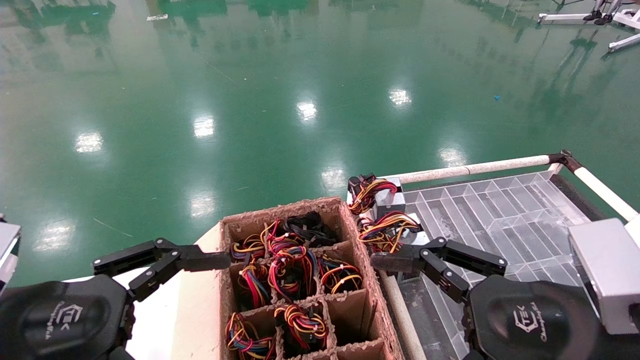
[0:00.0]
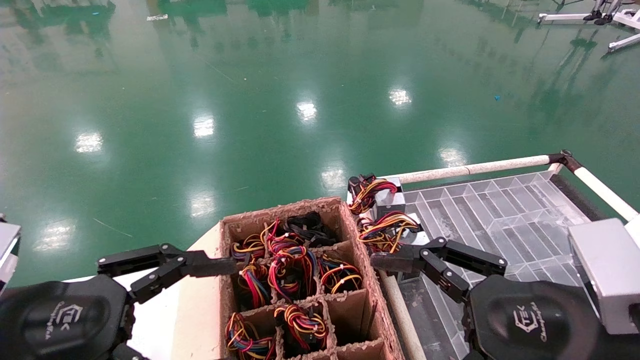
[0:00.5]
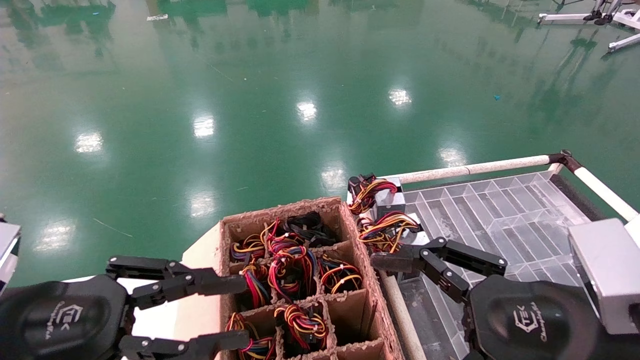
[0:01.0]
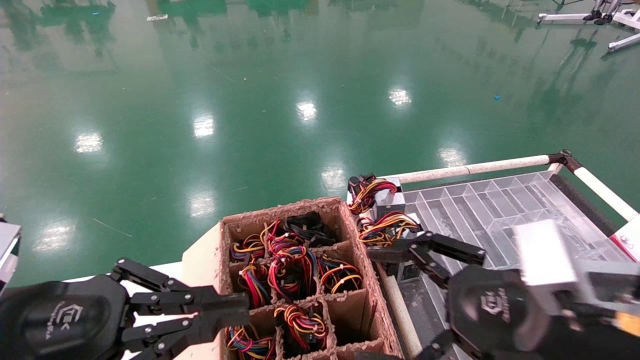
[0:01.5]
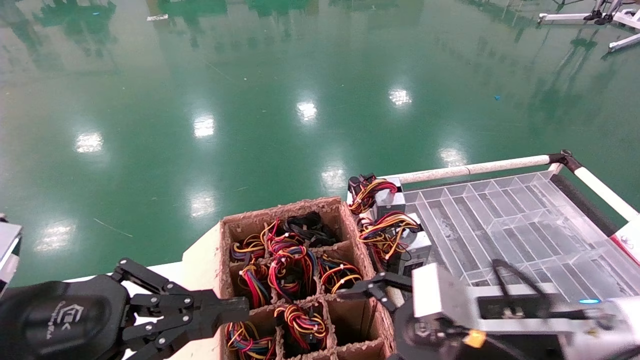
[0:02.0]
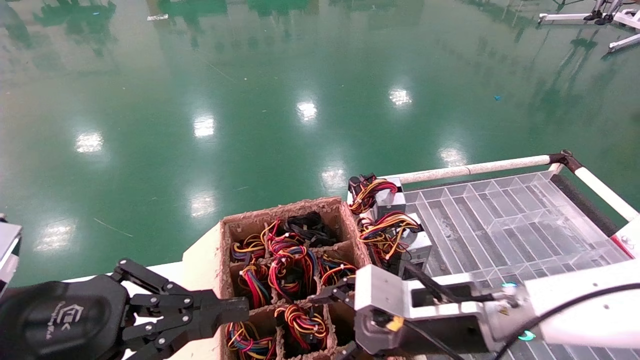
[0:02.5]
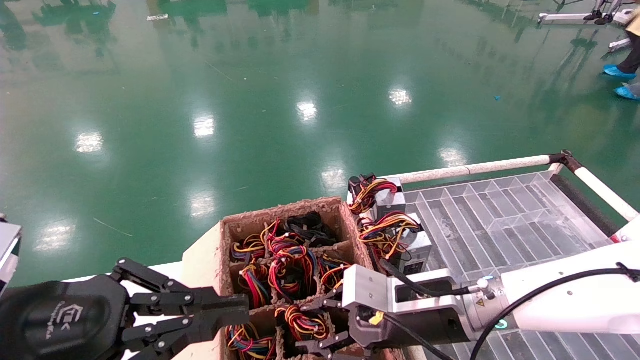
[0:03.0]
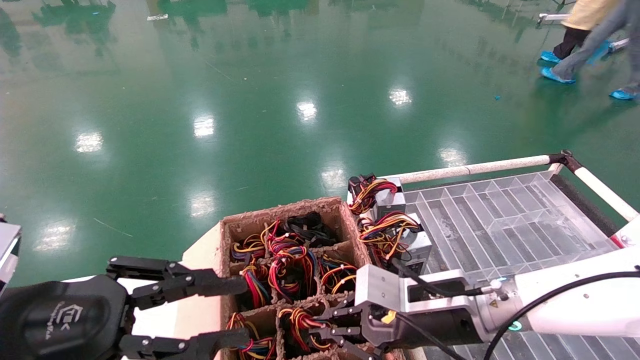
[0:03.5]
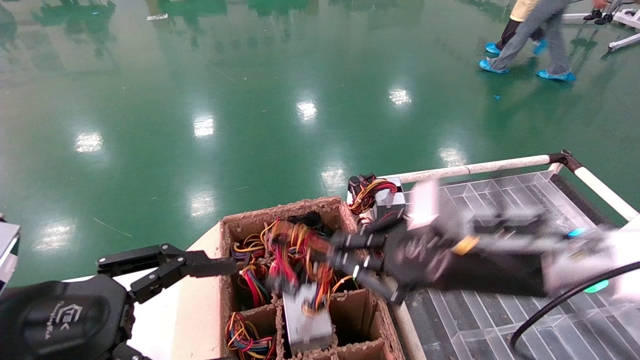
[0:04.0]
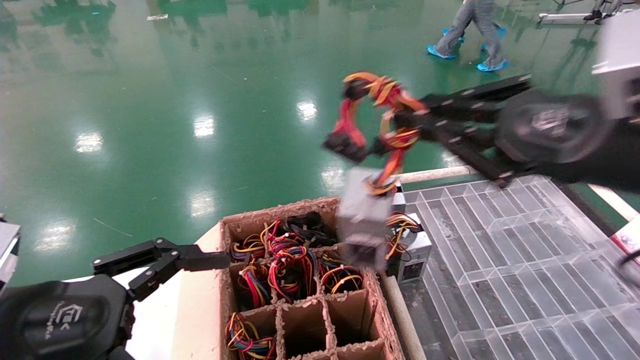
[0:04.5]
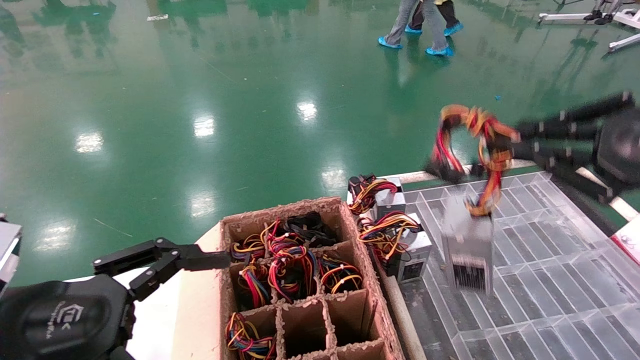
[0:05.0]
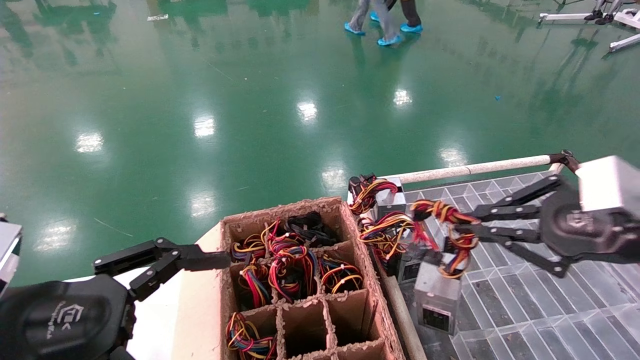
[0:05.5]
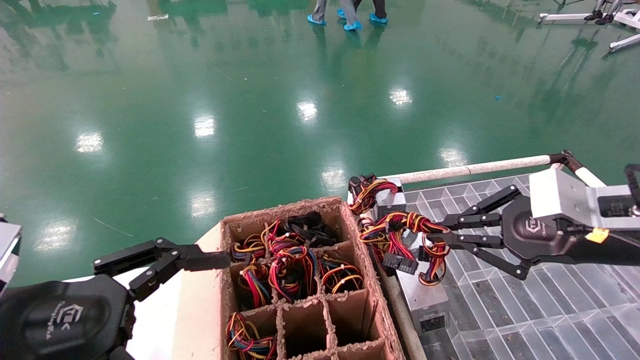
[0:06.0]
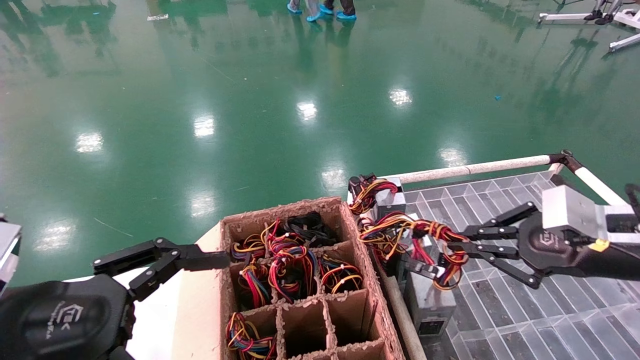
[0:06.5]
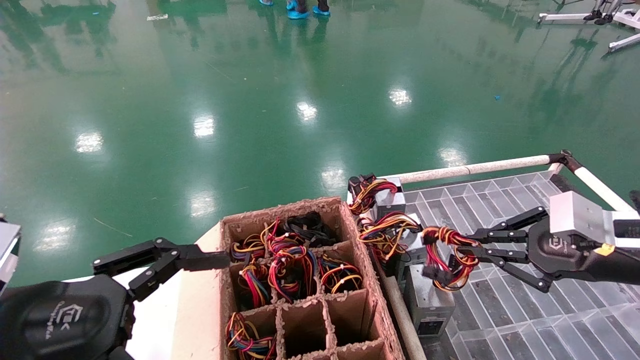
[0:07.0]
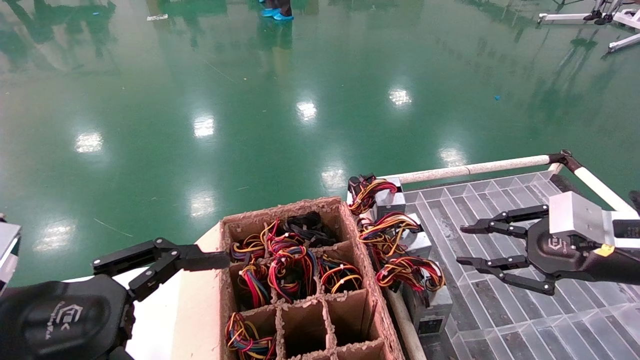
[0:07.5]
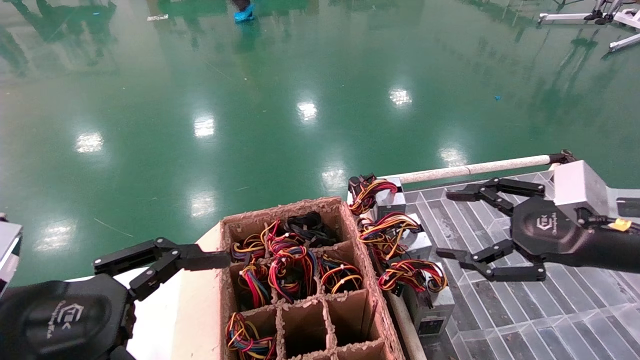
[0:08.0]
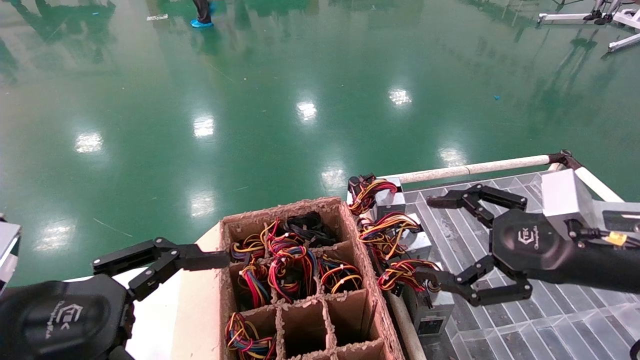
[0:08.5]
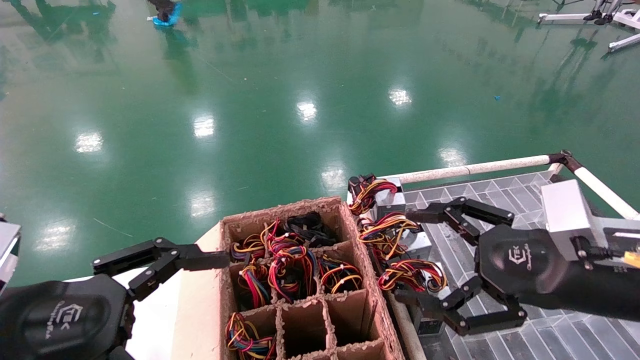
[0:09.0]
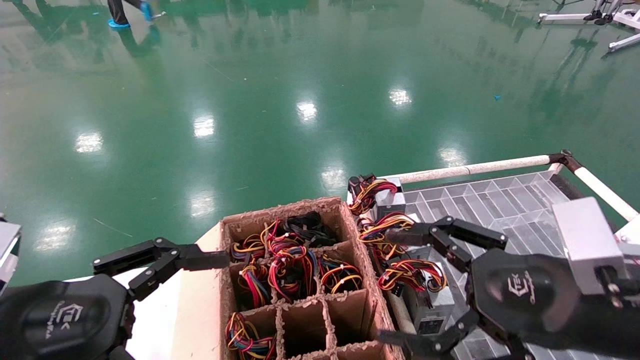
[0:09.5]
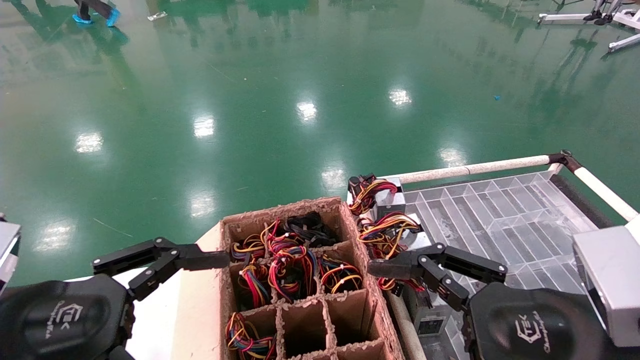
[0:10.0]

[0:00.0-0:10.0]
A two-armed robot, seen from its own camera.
Step, 0:02.0 to 0:03.5: Grab and lift the power supply from the large box.
Step, 0:04.0 to 0:07.0: Place the power supply on the operating table.
0:00.0 to 0:02.0: The left gripper closes. The right gripper moves forward, about 10 cm.
0:02.0 to 0:04.0: The right gripper travels upward by some 10 cm, and closes its fingers. The left gripper opens its fingers.
0:04.0 to 0:06.0: The right gripper shifts some 15 cm to the right.
0:06.0 to 0:08.0: The right gripper opens up.
0:08.0 to 0:10.0: The right gripper heads backward and to the left, covering roughly 15 cm.

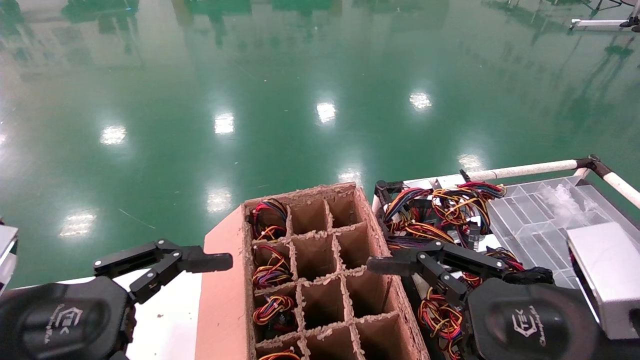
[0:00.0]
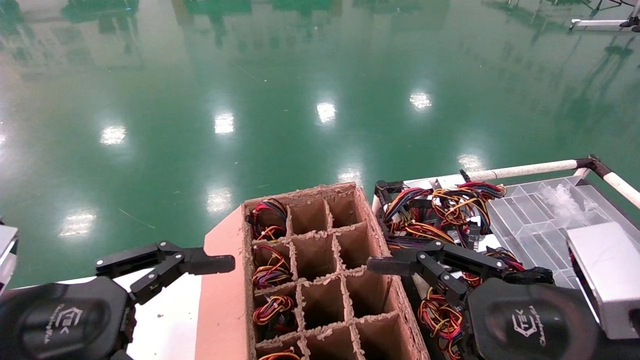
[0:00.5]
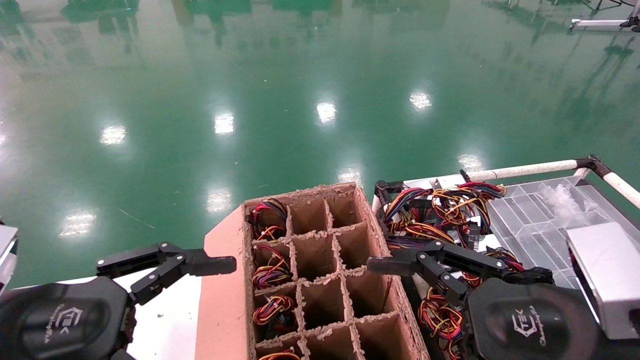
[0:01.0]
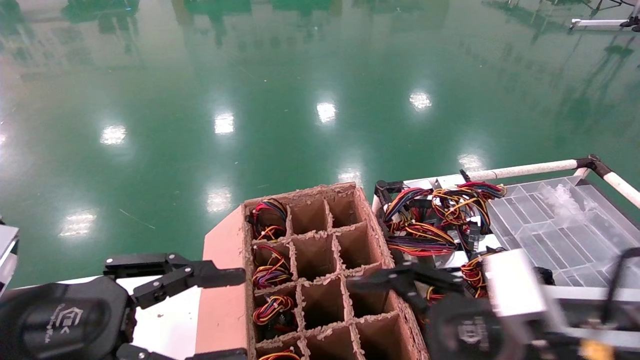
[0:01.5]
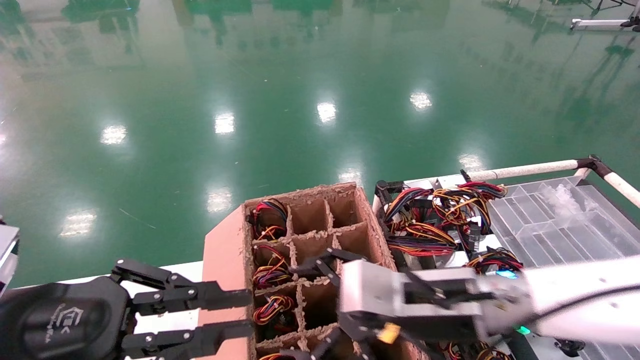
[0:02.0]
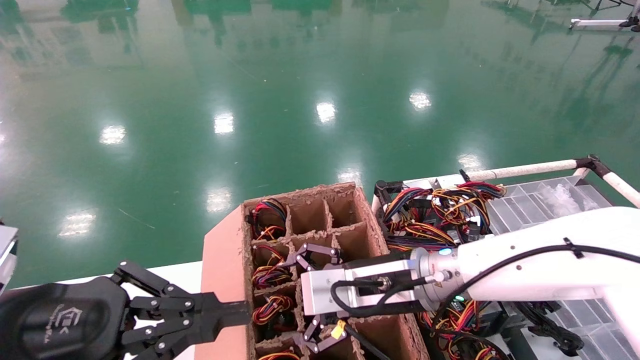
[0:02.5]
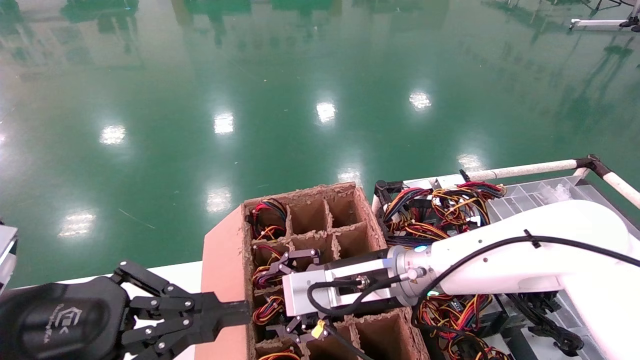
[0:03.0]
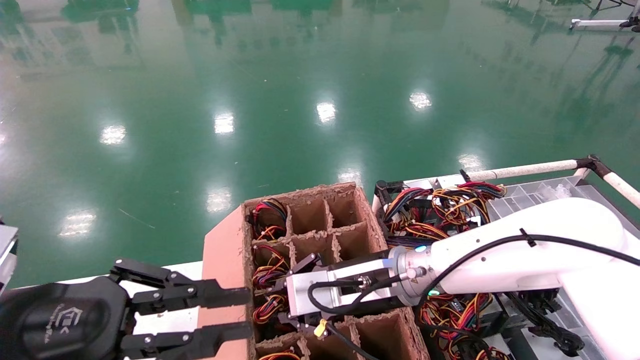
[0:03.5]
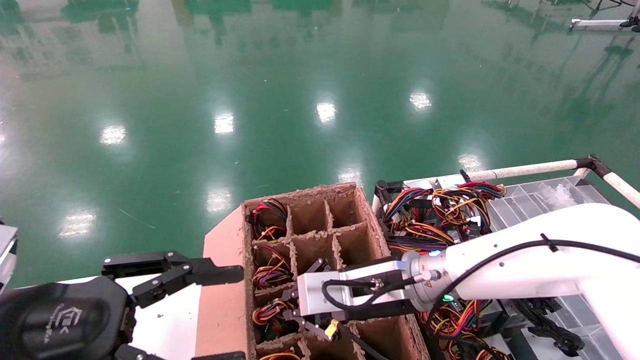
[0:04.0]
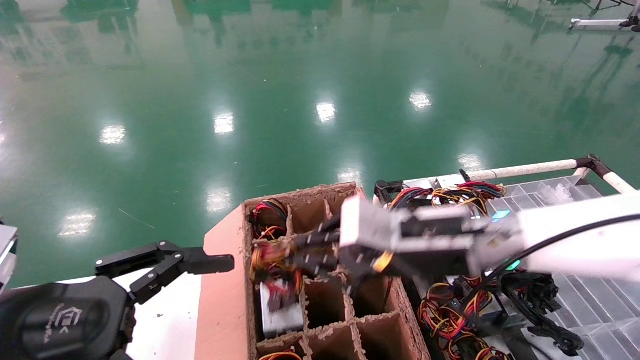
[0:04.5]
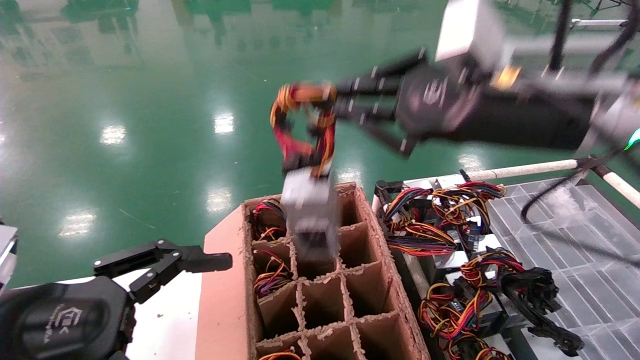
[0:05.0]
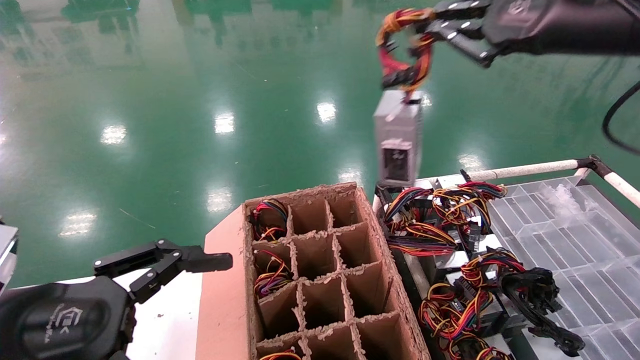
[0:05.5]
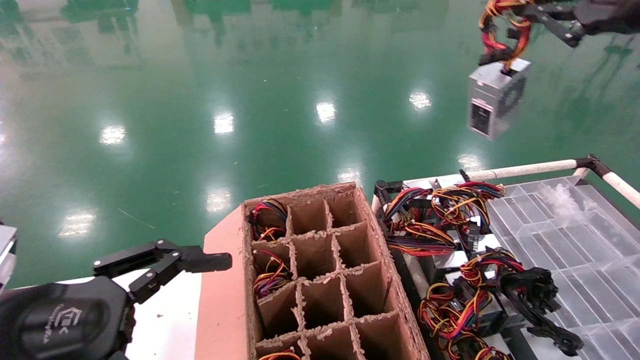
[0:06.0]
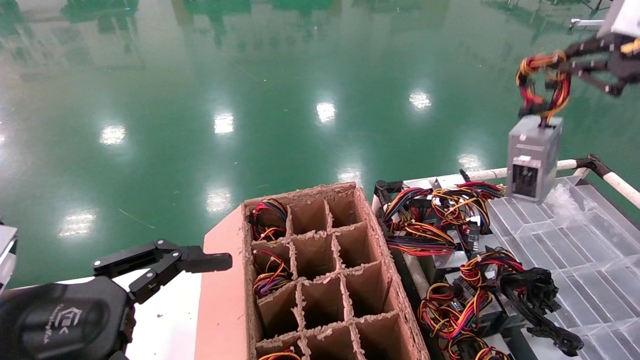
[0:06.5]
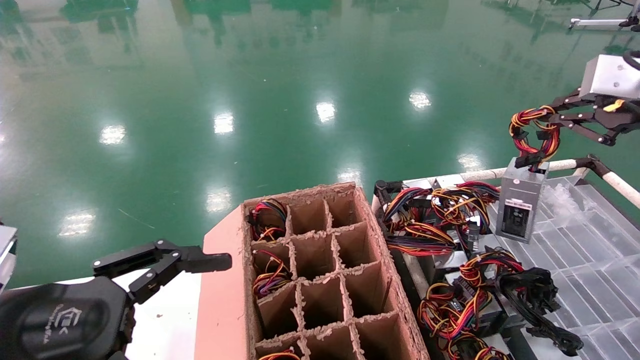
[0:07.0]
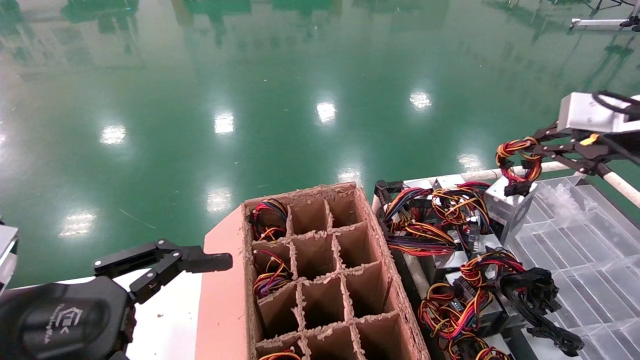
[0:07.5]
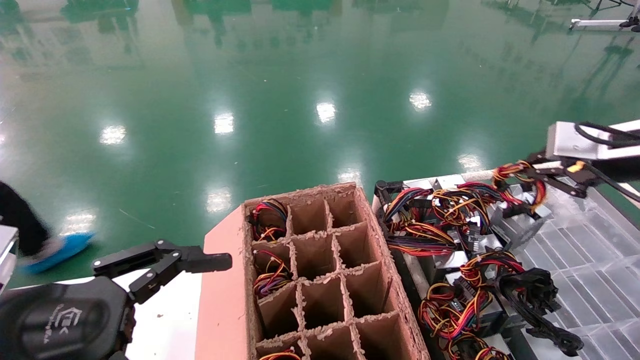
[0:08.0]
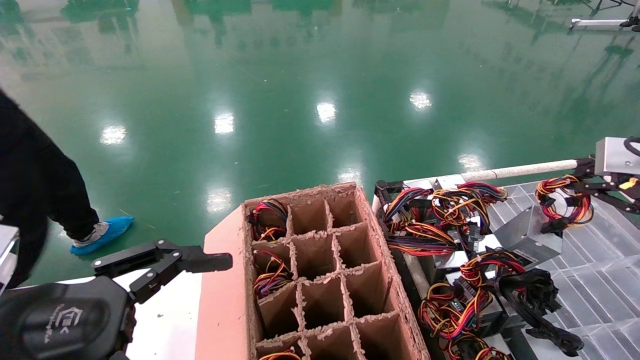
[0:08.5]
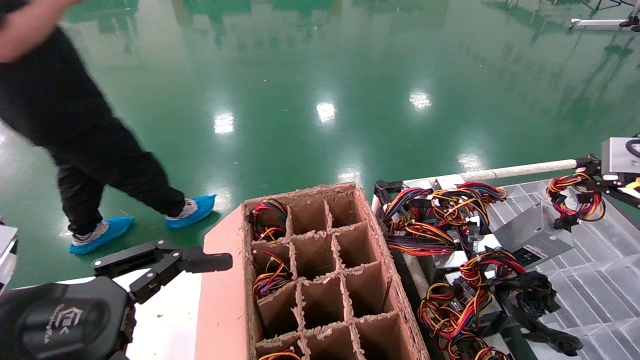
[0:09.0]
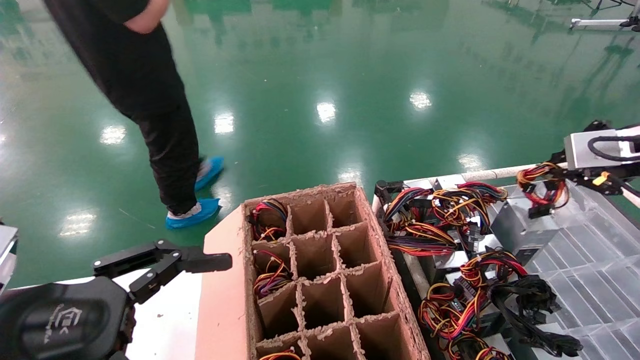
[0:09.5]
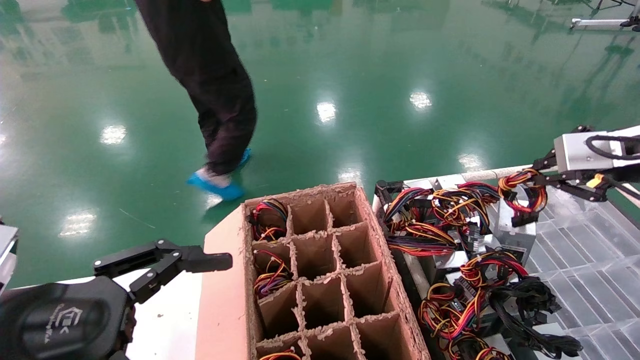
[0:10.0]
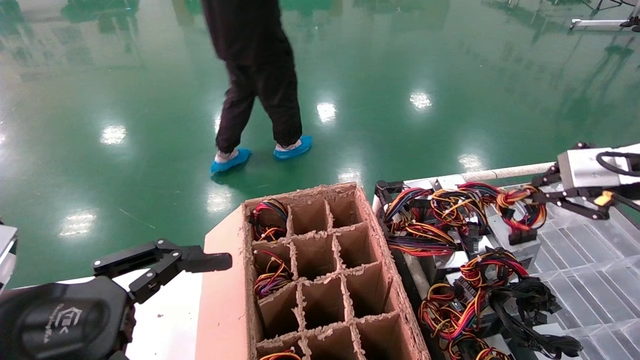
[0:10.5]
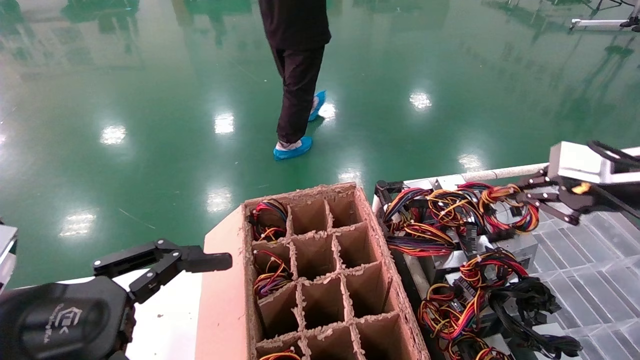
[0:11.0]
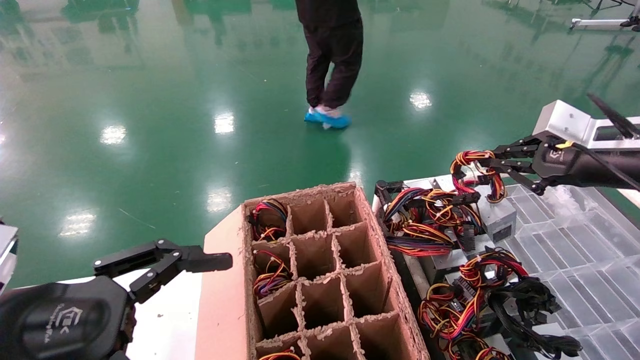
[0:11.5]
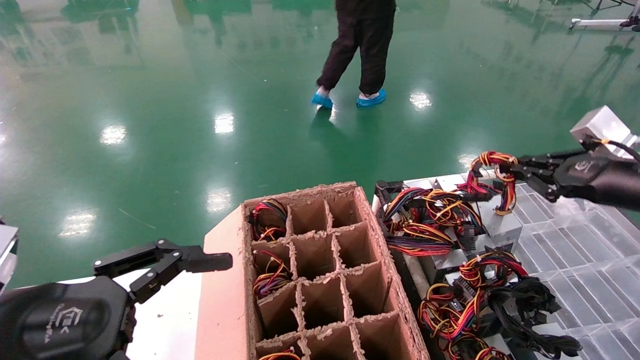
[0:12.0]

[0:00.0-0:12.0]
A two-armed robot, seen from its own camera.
Step, 0:02.5 to 0:04.0: Grab and lift the power supply from the large box.
0:00.0 to 0:02.0: The left gripper closes its fingers, while the right gripper goes some 15 cm forward and to the left.
0:02.0 to 0:04.0: The right gripper travels forward by approximately 5 cm, and closes.
0:04.0 to 0:06.0: The left gripper opens, while the right gripper goes approximately 40 cm upward and to the right.
0:06.0 to 0:08.0: The right gripper moves downward, some 15 cm.
0:08.0 to 0:10.0: The grippers stay close to where they were, moving slightly.
0:10.0 to 0:12.0: The right gripper heads downward, covering some 5 cm.
